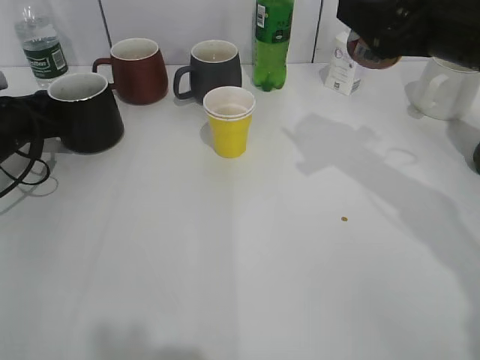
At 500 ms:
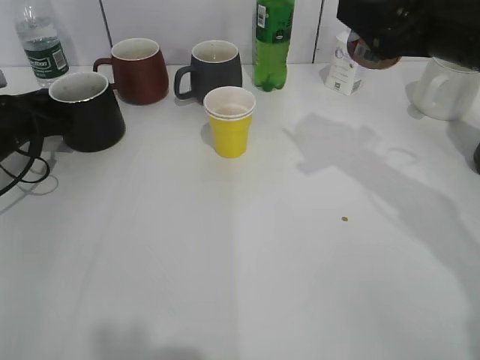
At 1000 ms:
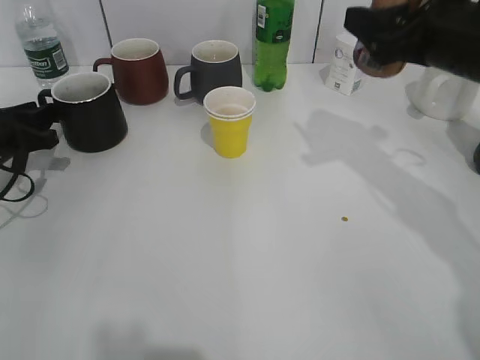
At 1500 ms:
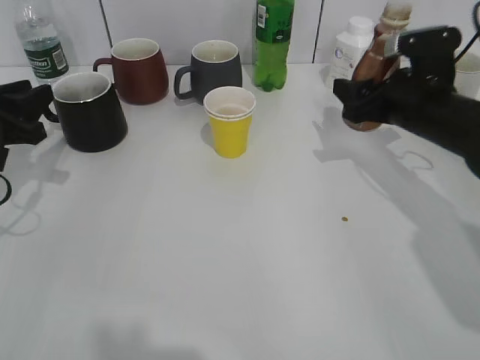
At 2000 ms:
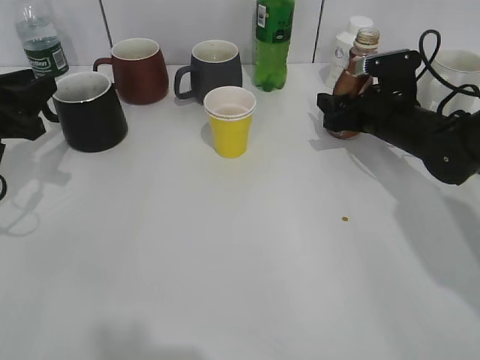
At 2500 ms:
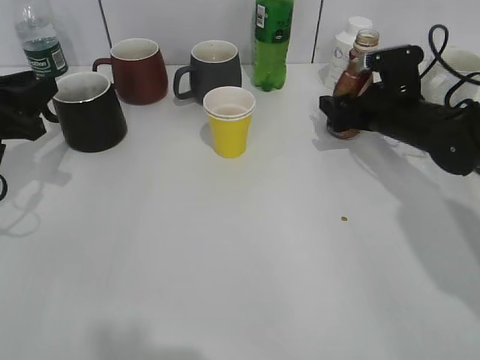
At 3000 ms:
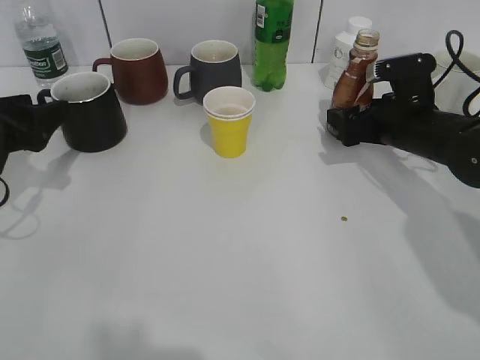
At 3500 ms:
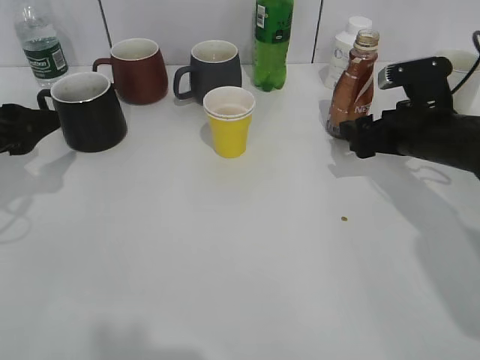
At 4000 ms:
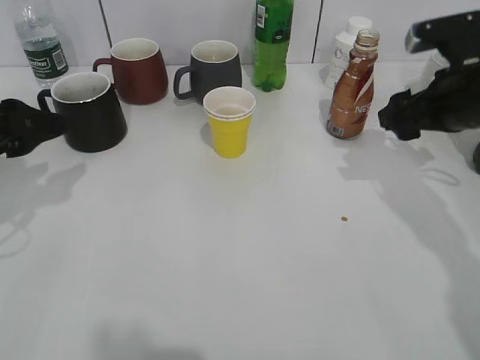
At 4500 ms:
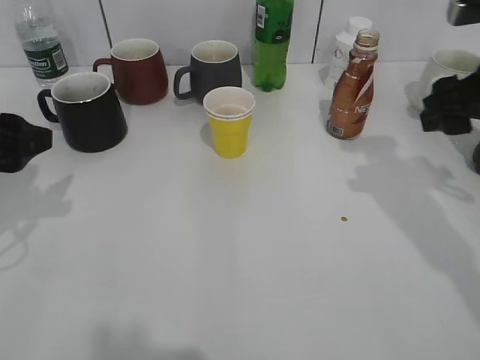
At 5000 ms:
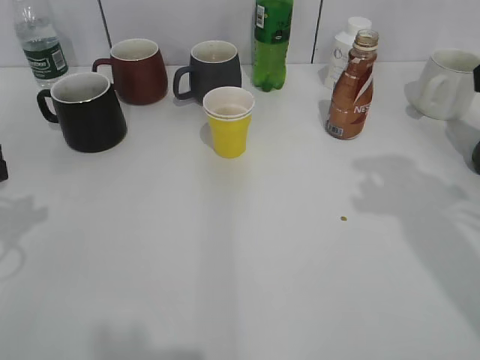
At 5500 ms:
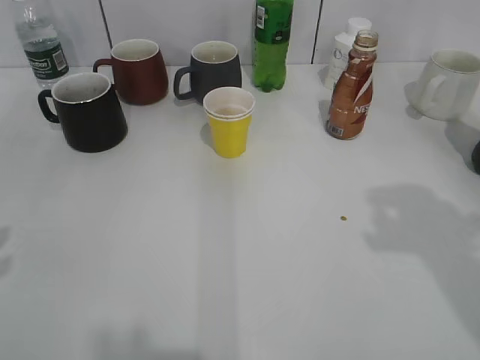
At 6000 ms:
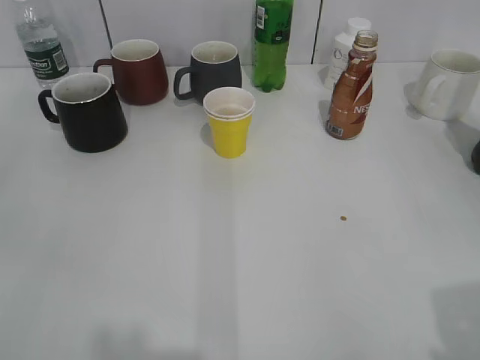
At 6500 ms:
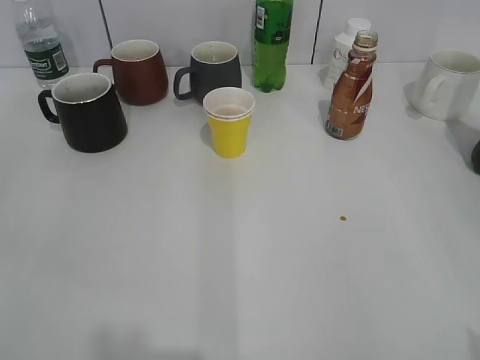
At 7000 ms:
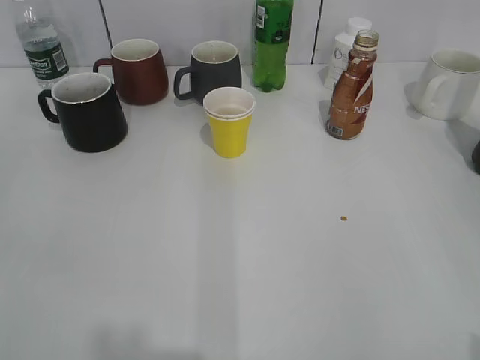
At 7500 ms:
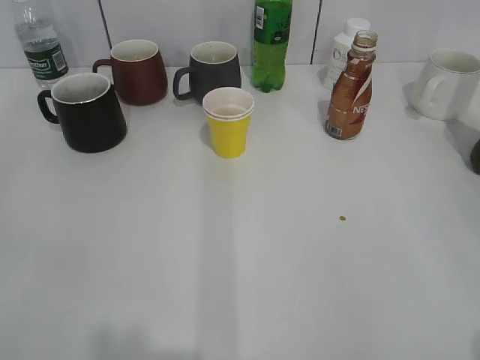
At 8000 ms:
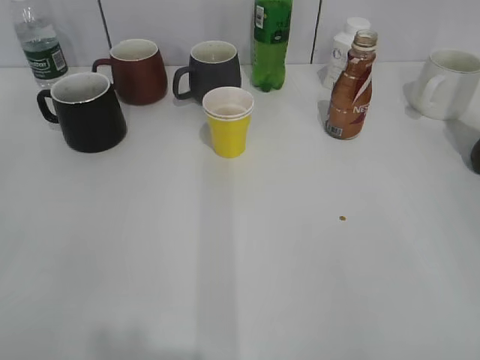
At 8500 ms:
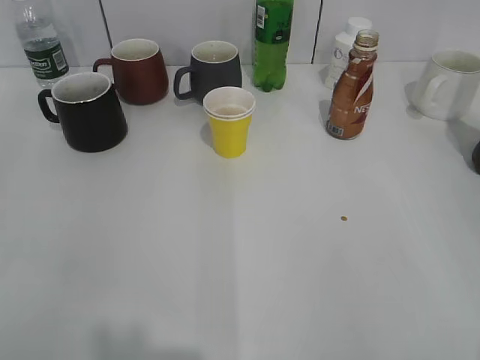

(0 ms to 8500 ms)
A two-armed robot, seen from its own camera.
Step, 1500 ms - 2500 ms: Place the coffee bottle on the table with right gripper.
0 ms - 2000 ms: The left gripper shifts roughly 10 cm backward and upward, and opens its fingers, while the right gripper travels downward and forward by roughly 20 cm.
2000 ms - 4000 ms: The right gripper travels upward and backward by some 15 cm, and opens; the left gripper shifts by some 5 cm, and opens up.
4000 ms - 6500 ms: Both grippers travel together backward, roughly 30 cm.

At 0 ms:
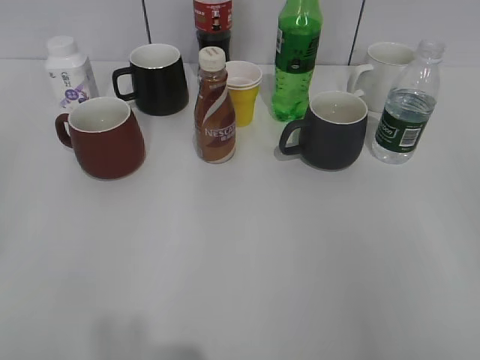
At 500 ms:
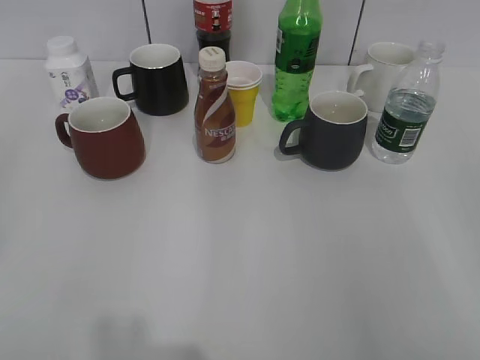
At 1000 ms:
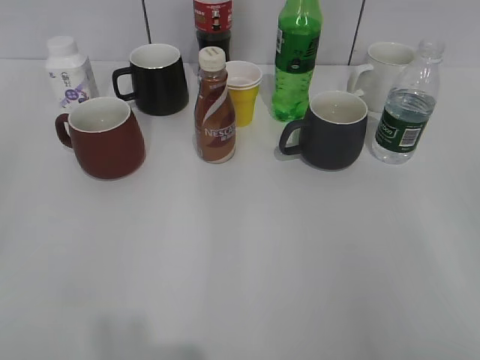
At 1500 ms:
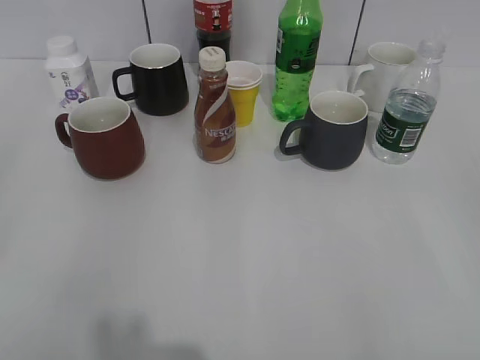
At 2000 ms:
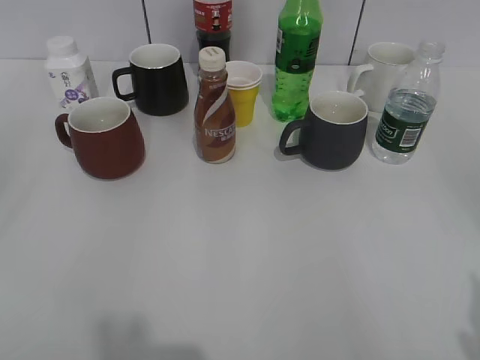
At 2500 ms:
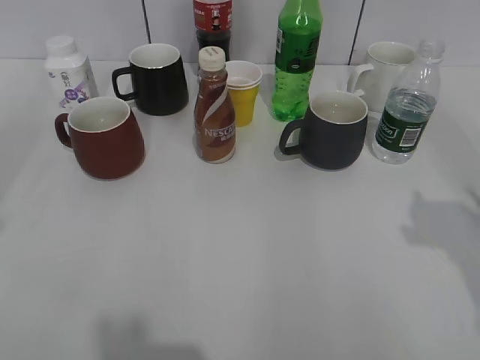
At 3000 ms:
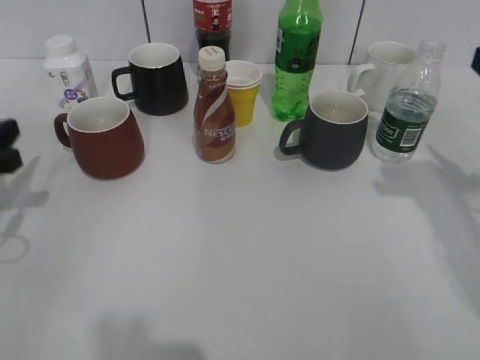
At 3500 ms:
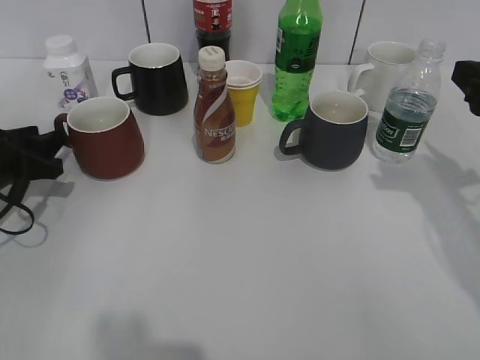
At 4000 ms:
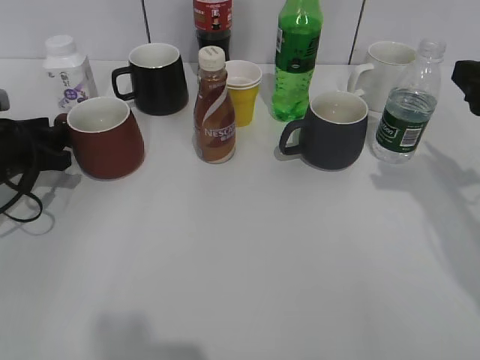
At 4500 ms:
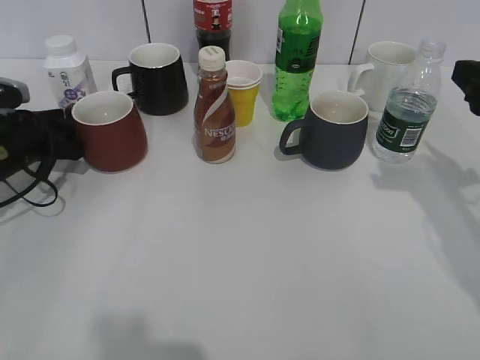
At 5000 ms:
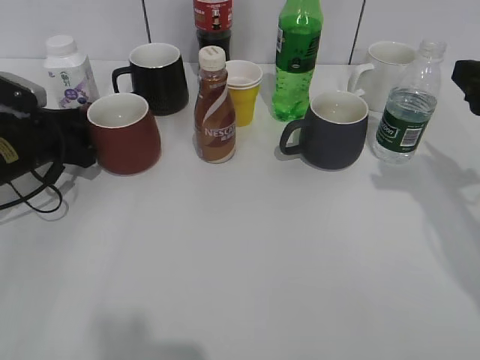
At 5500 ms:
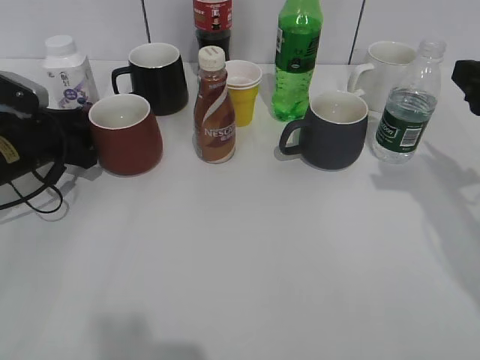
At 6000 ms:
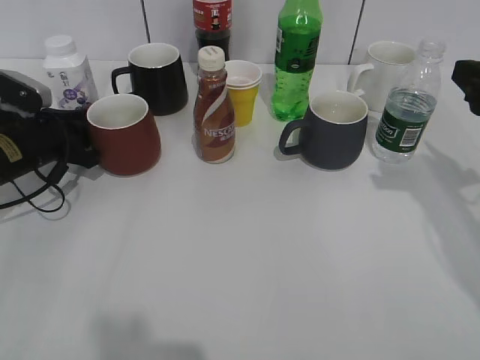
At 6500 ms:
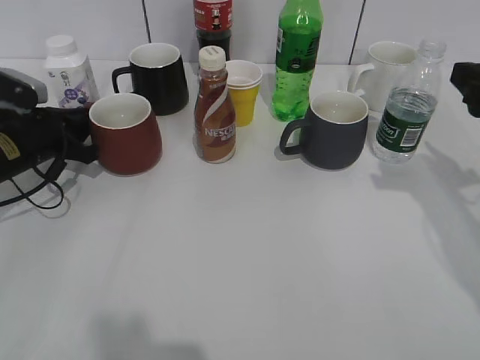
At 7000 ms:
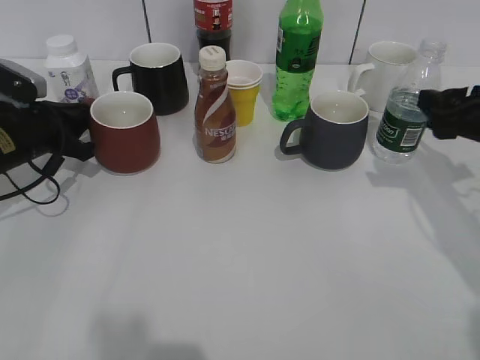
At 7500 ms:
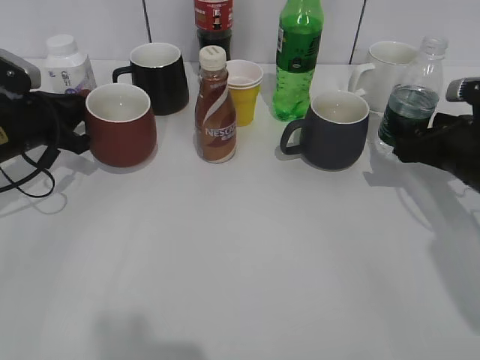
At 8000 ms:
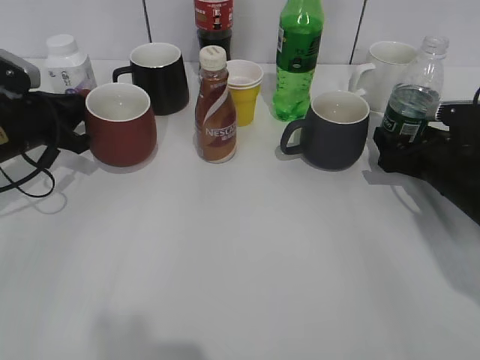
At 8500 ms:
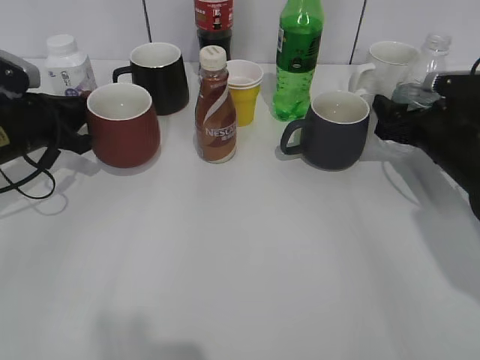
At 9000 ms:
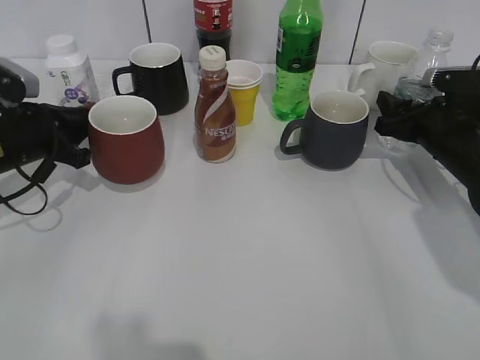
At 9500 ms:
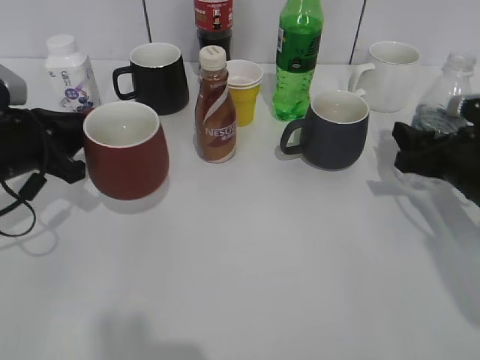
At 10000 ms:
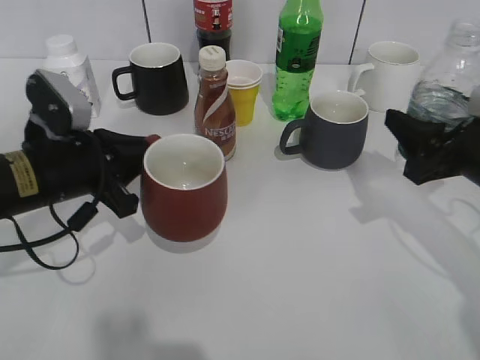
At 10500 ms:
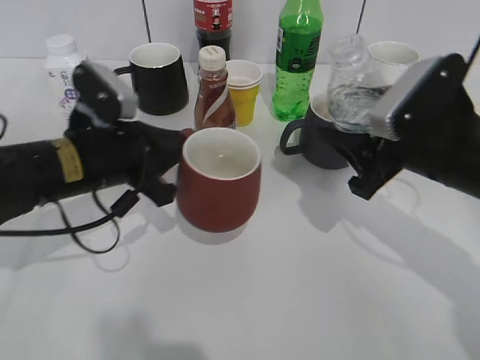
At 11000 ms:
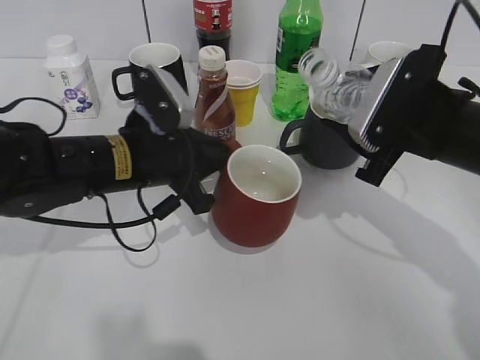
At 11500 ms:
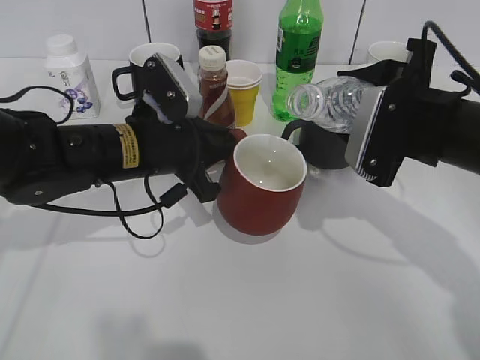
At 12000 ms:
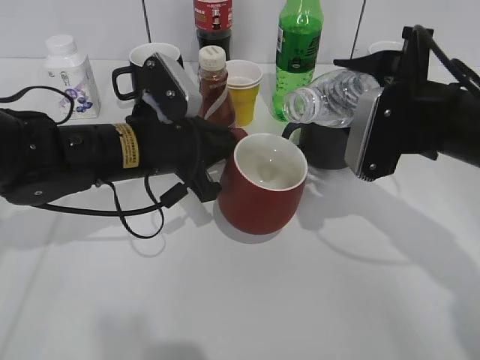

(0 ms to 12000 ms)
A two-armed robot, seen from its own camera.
Step, 2000 ms - 4500 ms: Grasp the red cup with left gripper.
Step, 5000 ms - 7000 ms: Lift the red cup with left gripper.
Step, 7500 ms - 8500 ms: Grasp the bottle with water with right gripper.
2000 ms - 4000 ms: The right gripper moves forward, roughly 25 cm, while the left gripper goes about 35 cm forward and downward, and opens up.
4000 ms - 6000 ms: The grippers make only small movements.
6000 ms - 8000 ms: The right gripper shifts approximately 15 cm downward and forward, while the left gripper closes its fingers.
8000 ms - 10000 ms: The right gripper travels upward and backward by roughly 10 cm, and closes up; the left gripper goes about 10 cm backward and to the right.
10000 ms - 12000 ms: The right gripper shifts roughly 5 cm to the left. The left gripper shifts approximately 10 cm to the right.

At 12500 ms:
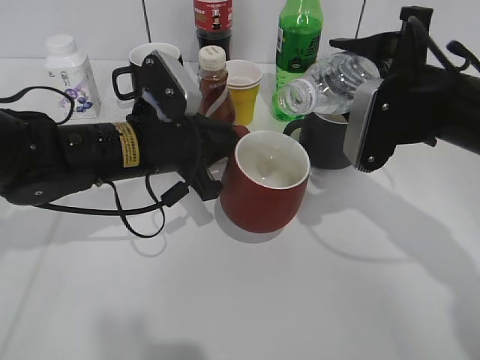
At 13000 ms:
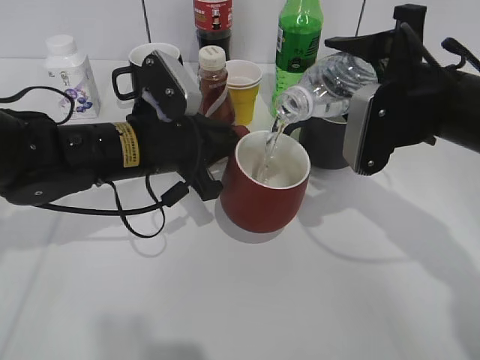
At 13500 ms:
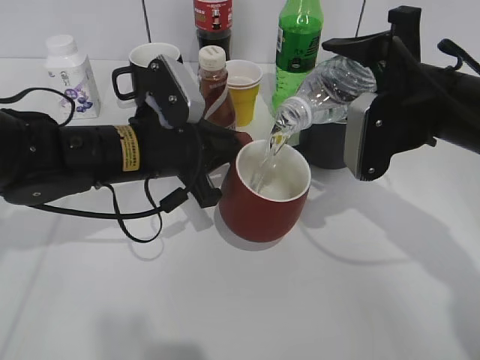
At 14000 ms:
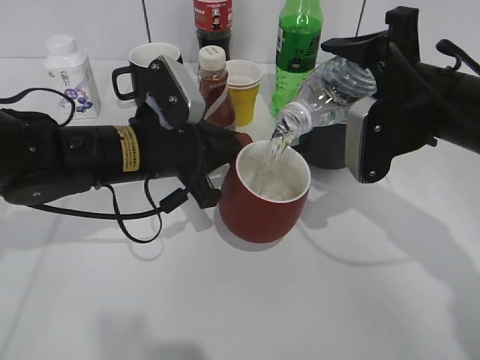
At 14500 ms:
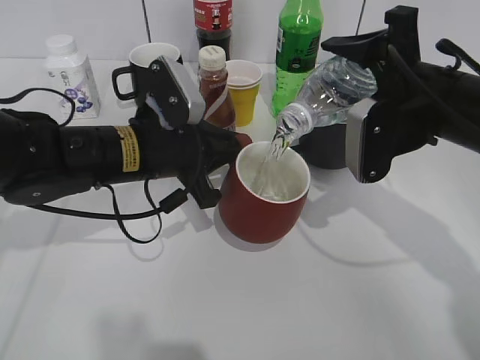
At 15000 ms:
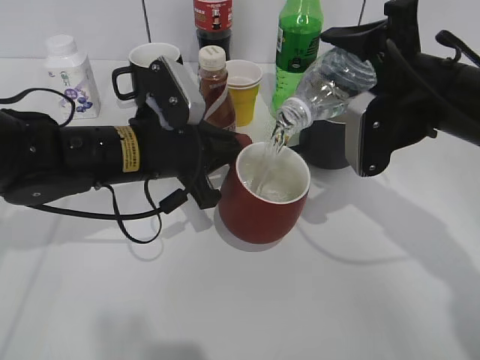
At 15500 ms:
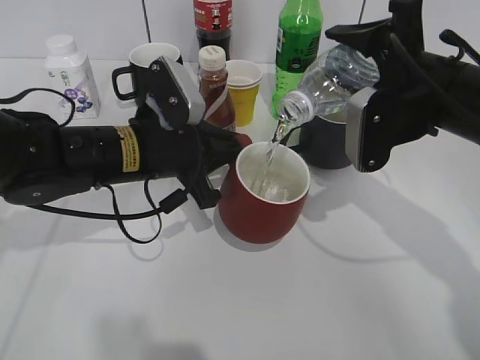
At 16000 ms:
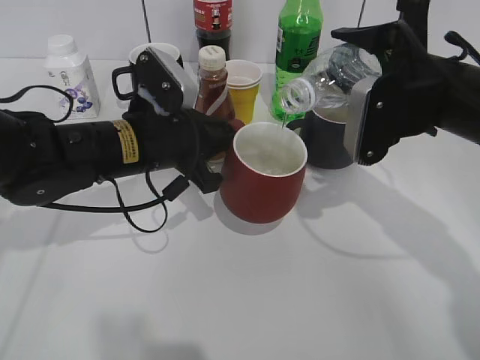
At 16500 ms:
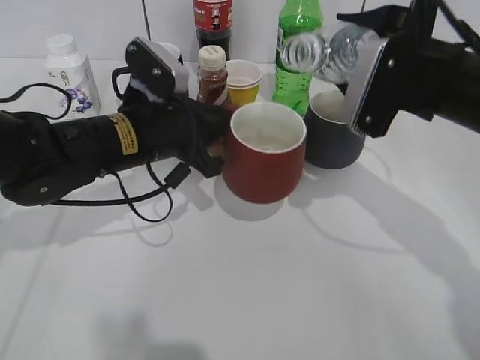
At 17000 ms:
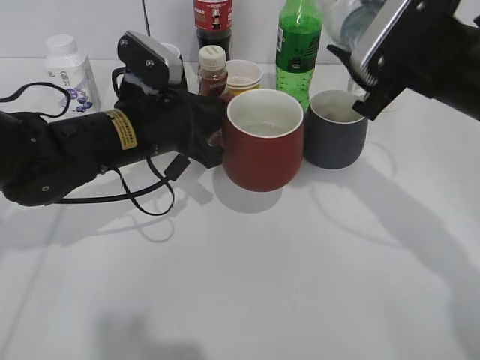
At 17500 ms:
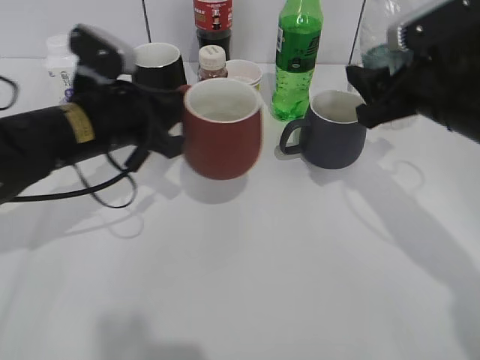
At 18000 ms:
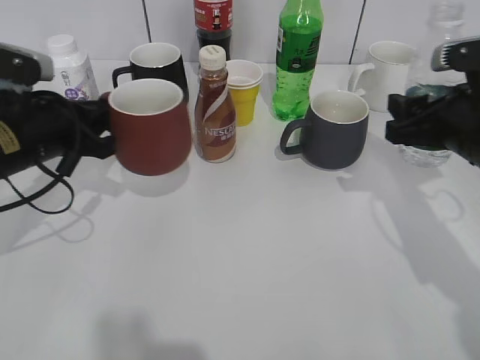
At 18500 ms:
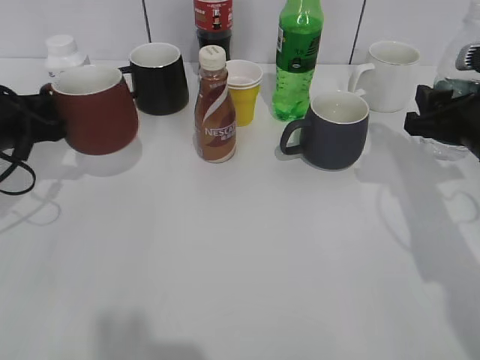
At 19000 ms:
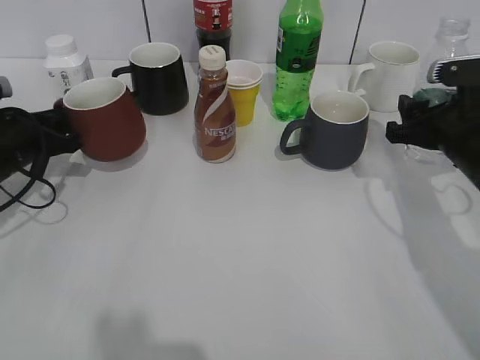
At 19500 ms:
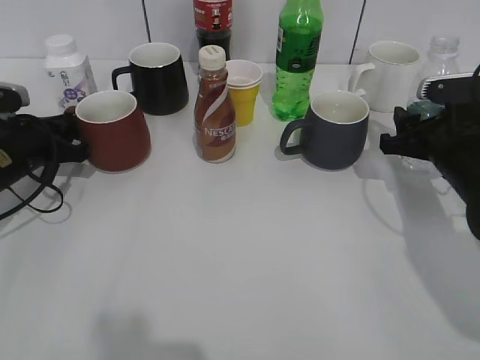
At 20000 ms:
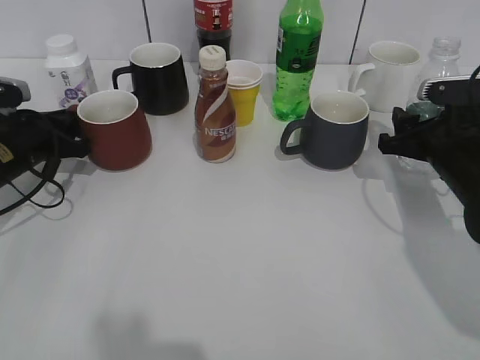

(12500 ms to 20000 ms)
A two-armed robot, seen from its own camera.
Step, 12500 ms - 16000 ms: Pour the water from bottle to cup with right gripper.
Step, 16500 ms - 19500 ms: Place the red cup on the table with left gripper.
12500 ms - 14500 ms: The grippers stay close to where they were, moving slightly.
16500 ms - 18000 ms: The left gripper goes approximately 10 cm to the left. The right gripper shifts about 5 cm to the right.
18000 ms - 20000 ms: The left gripper travels downward, to the left and forward by approximately 10 cm, while the right gripper heads downward, covering roughly 5 cm.
